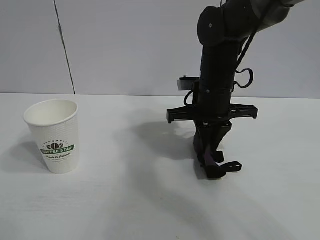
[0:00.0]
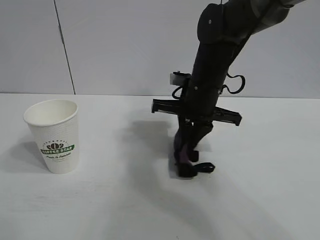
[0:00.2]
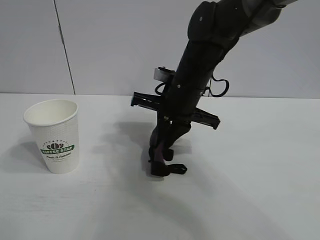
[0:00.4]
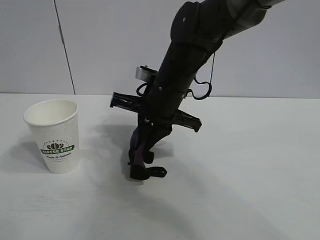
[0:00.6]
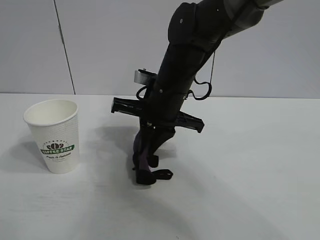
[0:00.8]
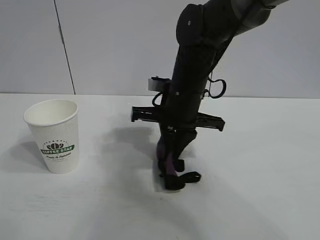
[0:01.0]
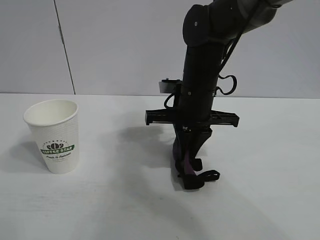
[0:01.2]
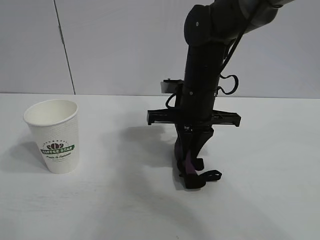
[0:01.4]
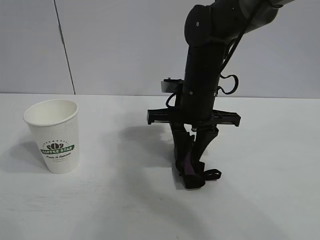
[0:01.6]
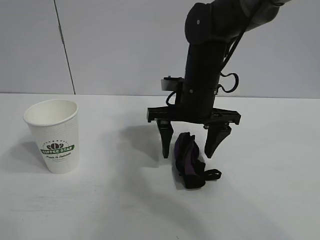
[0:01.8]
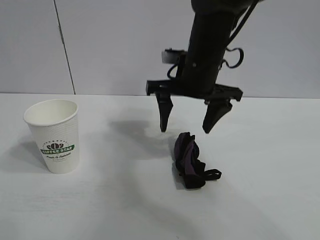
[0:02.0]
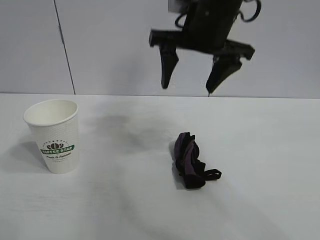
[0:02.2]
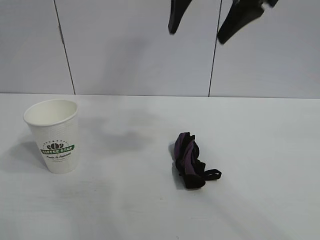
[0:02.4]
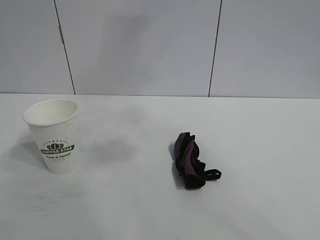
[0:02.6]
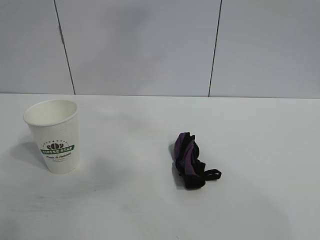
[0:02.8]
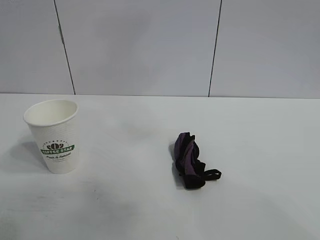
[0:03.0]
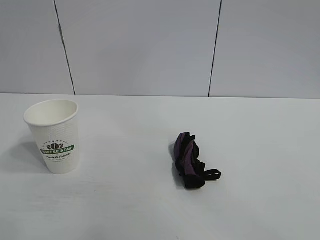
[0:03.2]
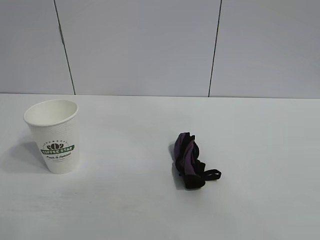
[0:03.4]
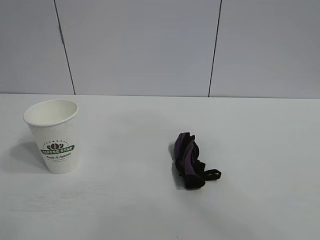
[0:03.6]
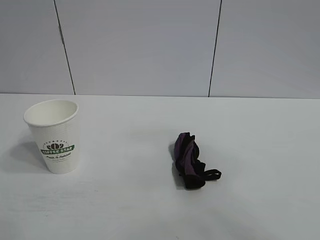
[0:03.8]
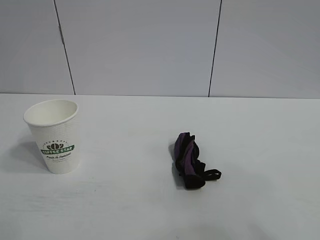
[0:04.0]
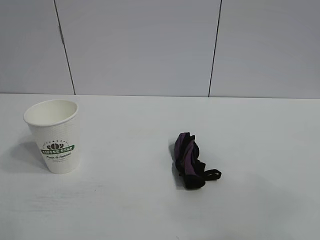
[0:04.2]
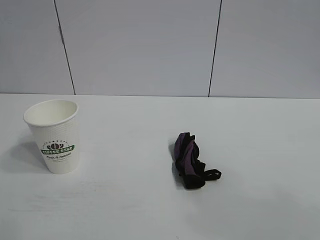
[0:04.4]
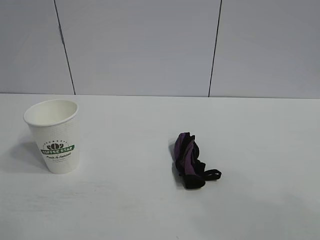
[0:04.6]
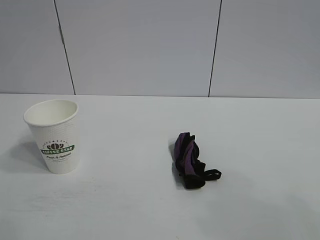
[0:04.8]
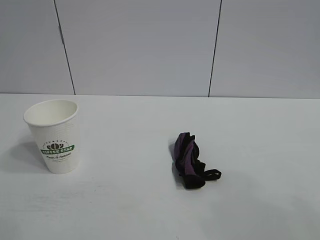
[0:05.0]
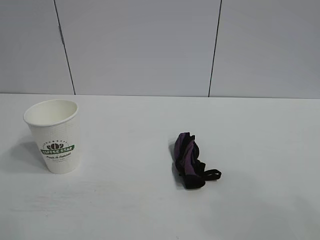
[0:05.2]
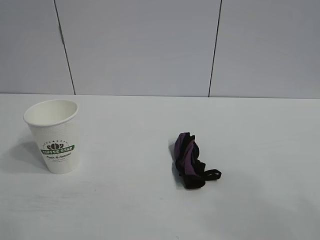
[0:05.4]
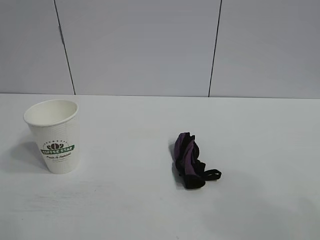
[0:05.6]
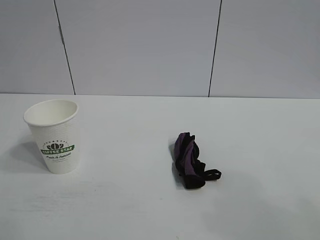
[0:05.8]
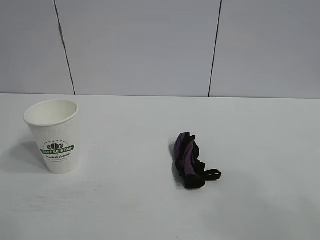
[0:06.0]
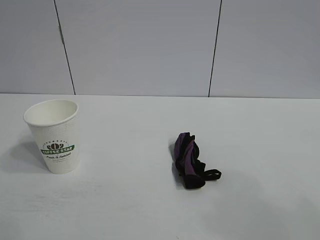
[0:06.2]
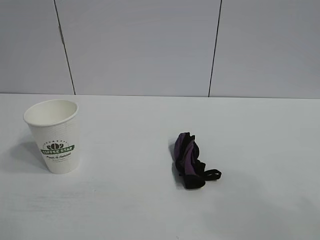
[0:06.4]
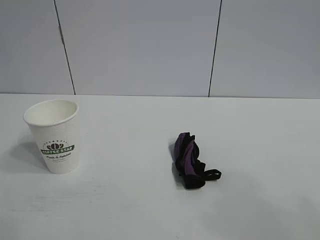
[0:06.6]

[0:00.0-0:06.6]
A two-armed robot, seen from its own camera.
Task of the whole recording: the left gripper pick up the fallen cup and place it upright, the right gripper grasp the black rag and wipe the stain on the table, the right gripper put the black rag back in its original position.
Step, 0:01.4 to 0:01.6: Place the rag on the table with right gripper.
